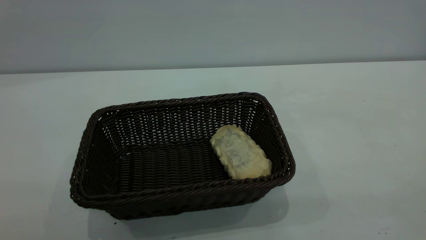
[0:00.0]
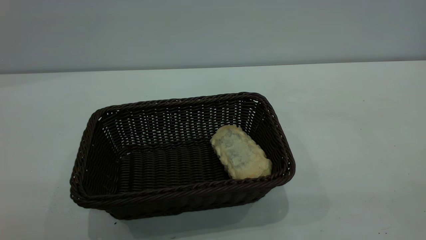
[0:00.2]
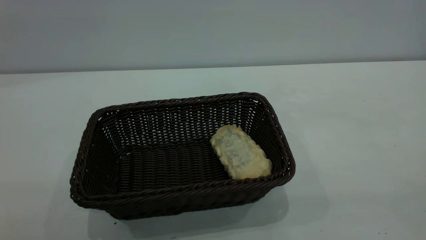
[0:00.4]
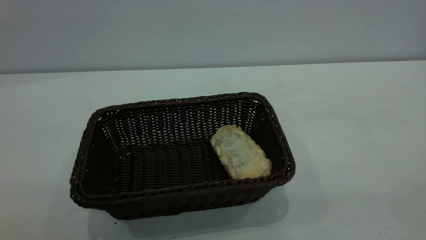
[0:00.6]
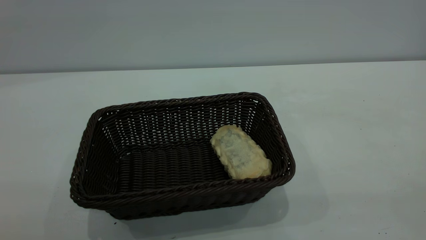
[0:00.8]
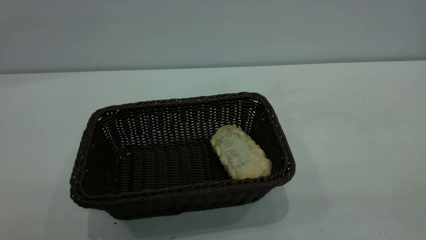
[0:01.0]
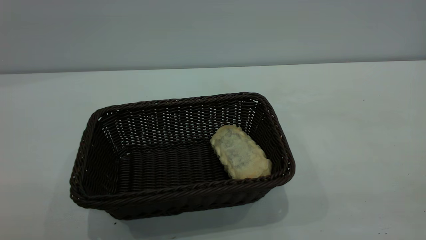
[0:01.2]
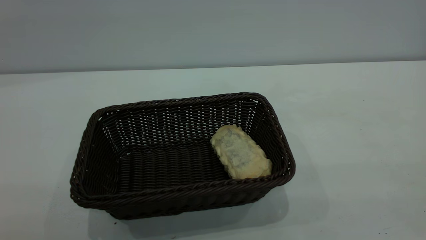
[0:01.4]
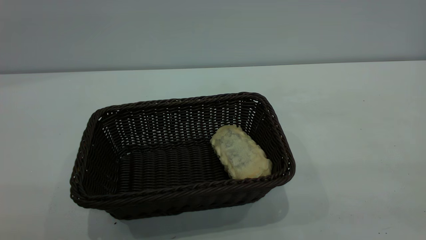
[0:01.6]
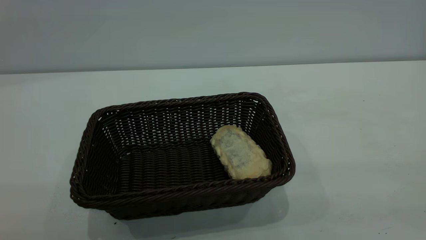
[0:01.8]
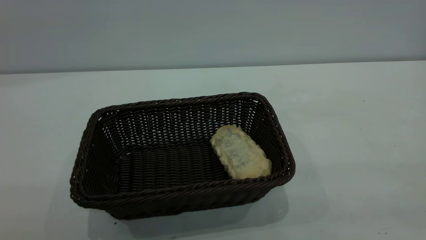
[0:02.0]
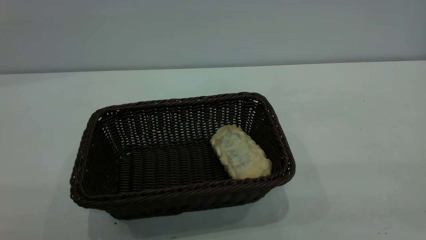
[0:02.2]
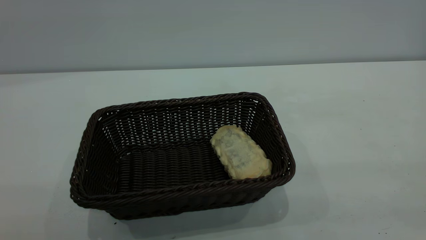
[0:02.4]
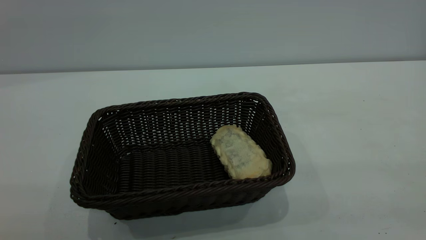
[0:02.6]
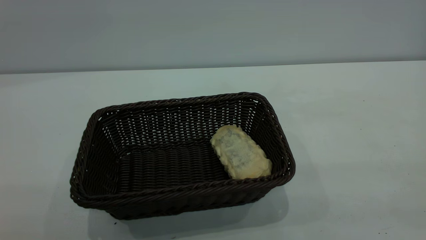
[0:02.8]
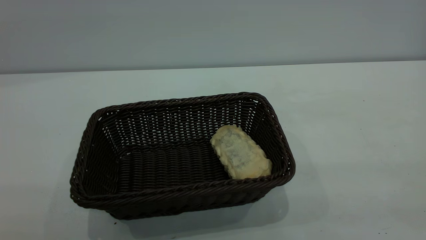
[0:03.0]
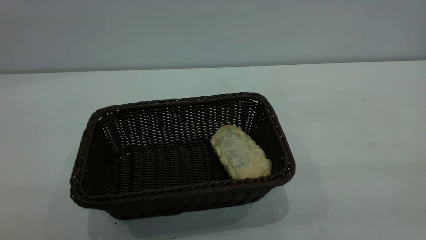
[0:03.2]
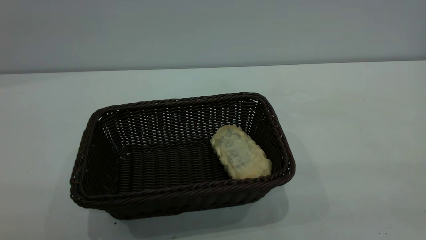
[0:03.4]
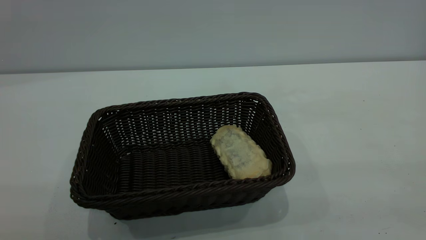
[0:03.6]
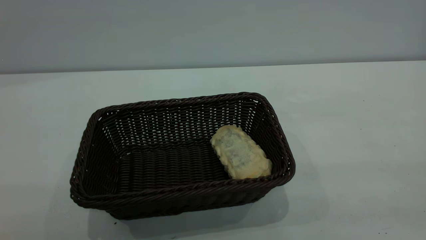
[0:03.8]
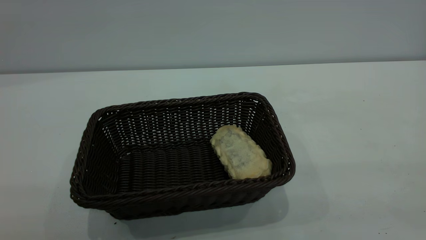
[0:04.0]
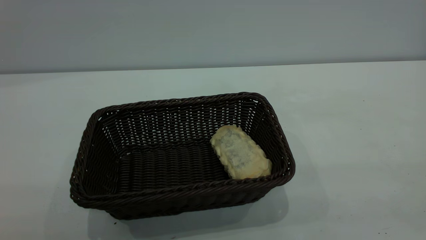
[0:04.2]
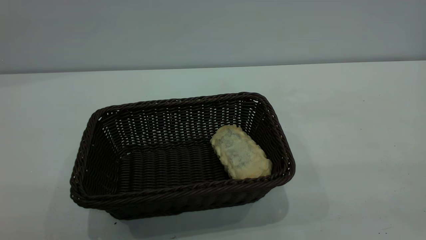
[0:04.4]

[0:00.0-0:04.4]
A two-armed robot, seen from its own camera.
Task of the whole recording: One hand grasps the black basket and places it in the middle of the table, while the other hand picks up the long bread and puts it into the black basket.
0:03.0 to 0:04.4: Neither gripper changes place.

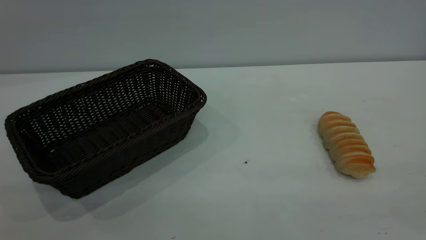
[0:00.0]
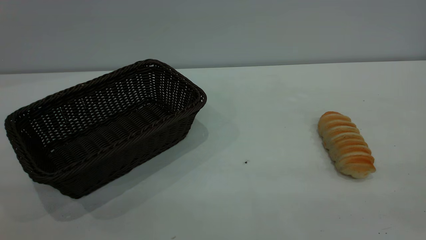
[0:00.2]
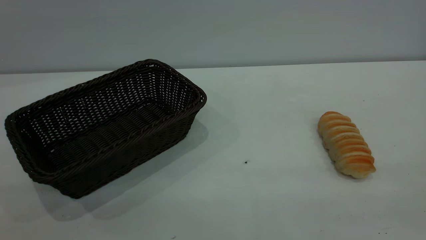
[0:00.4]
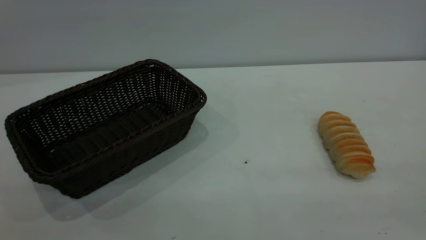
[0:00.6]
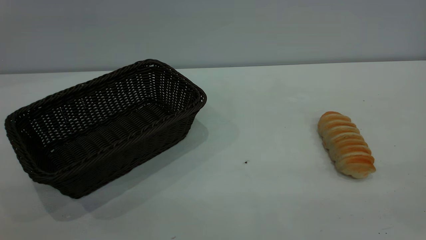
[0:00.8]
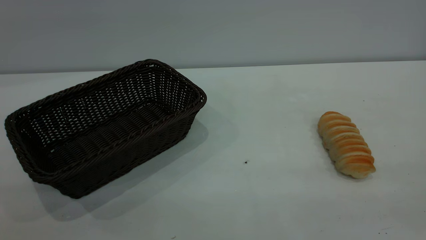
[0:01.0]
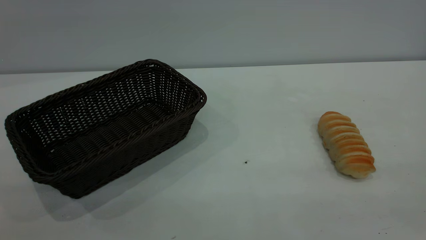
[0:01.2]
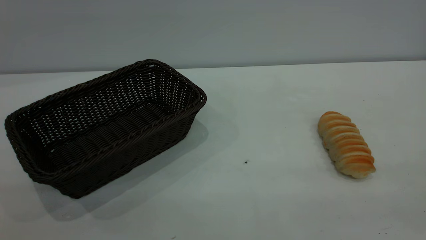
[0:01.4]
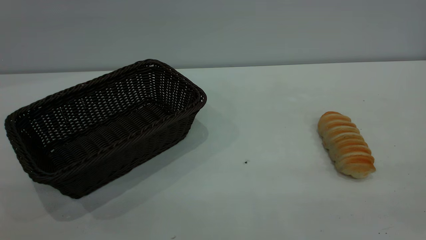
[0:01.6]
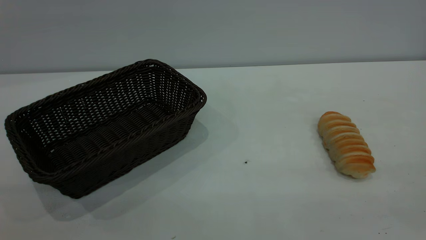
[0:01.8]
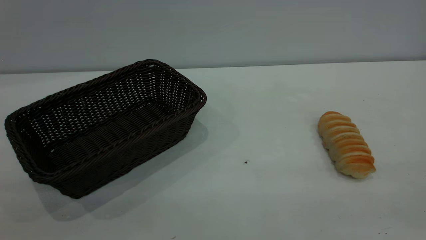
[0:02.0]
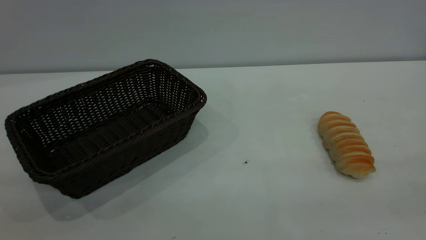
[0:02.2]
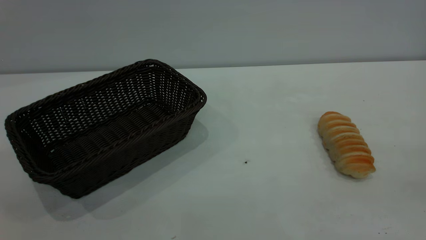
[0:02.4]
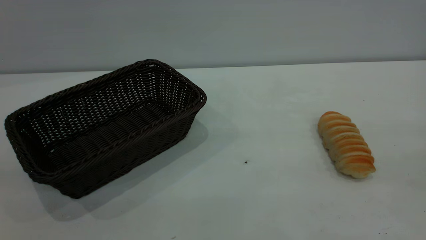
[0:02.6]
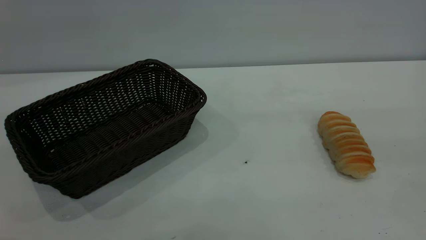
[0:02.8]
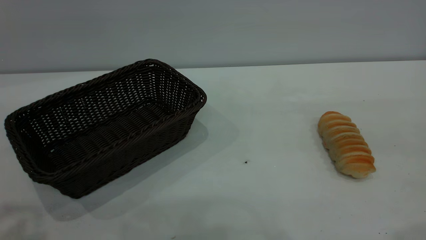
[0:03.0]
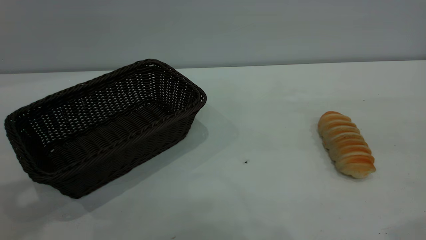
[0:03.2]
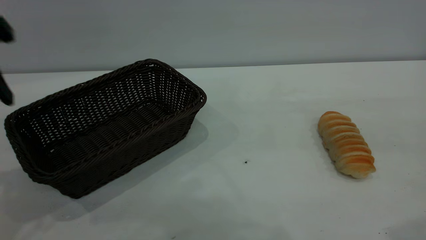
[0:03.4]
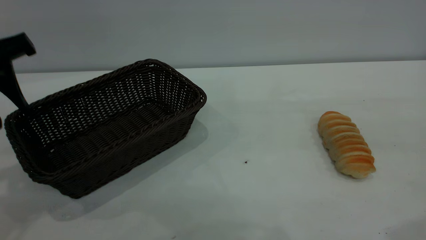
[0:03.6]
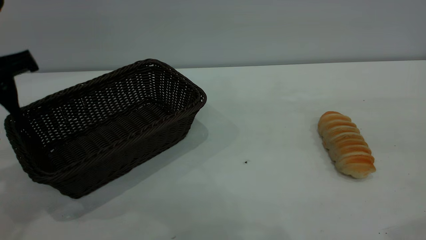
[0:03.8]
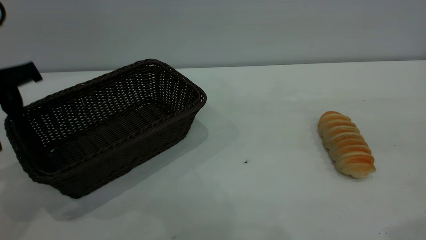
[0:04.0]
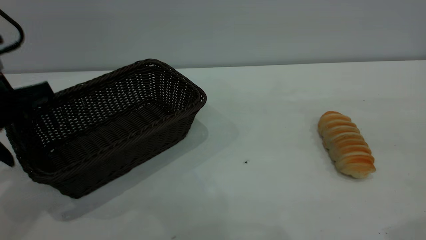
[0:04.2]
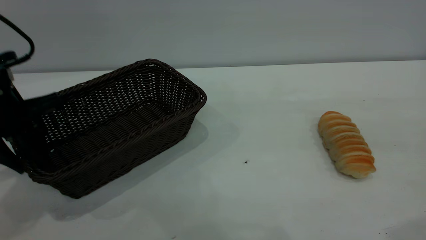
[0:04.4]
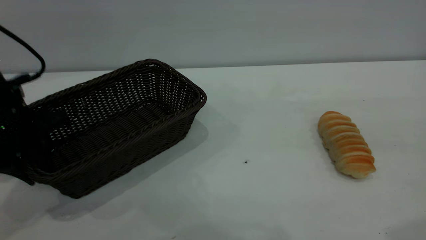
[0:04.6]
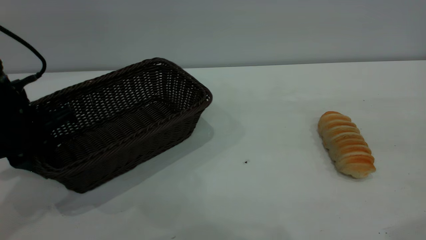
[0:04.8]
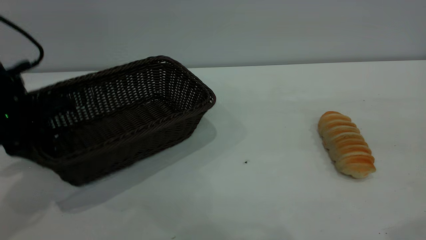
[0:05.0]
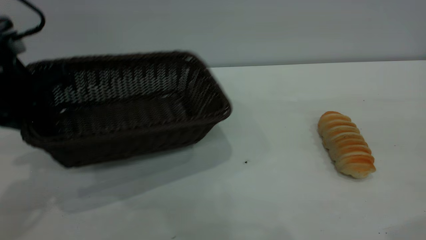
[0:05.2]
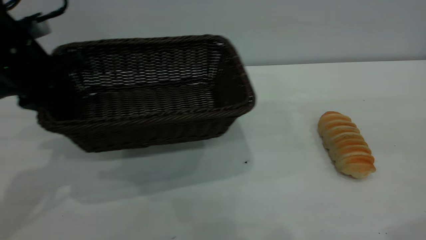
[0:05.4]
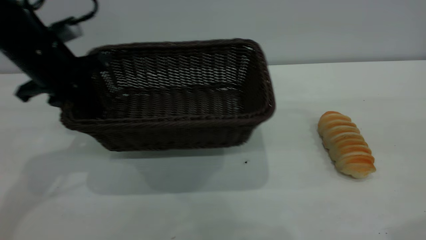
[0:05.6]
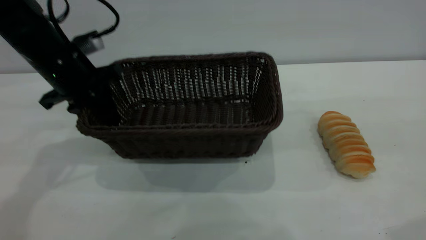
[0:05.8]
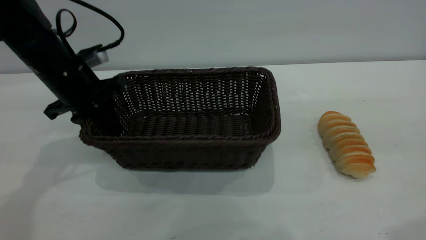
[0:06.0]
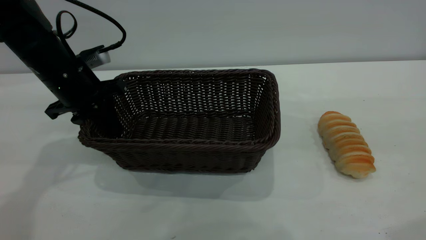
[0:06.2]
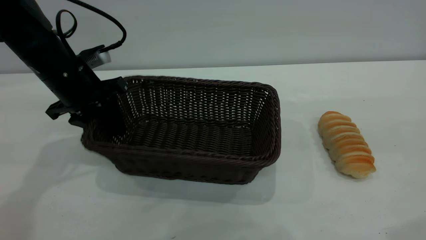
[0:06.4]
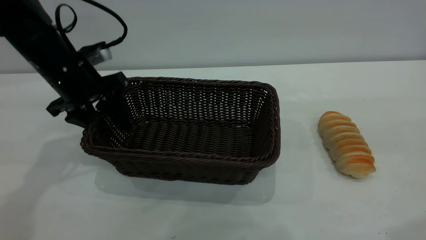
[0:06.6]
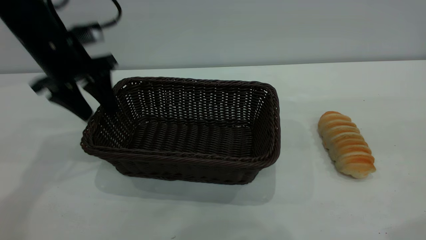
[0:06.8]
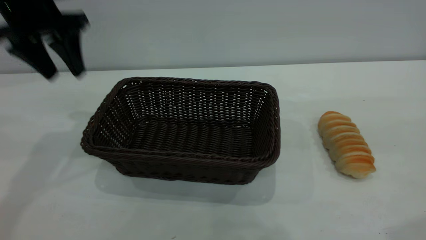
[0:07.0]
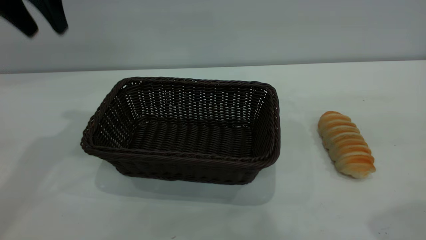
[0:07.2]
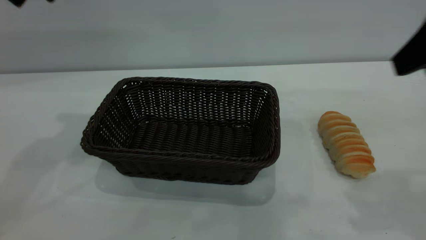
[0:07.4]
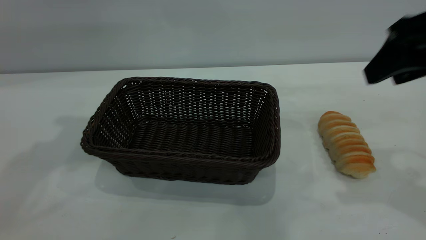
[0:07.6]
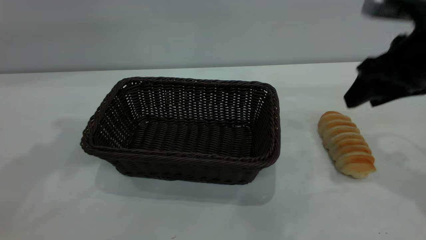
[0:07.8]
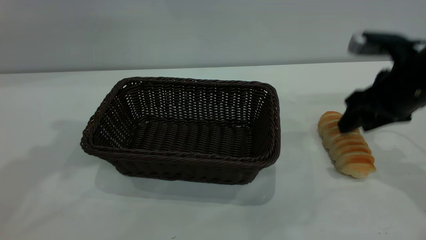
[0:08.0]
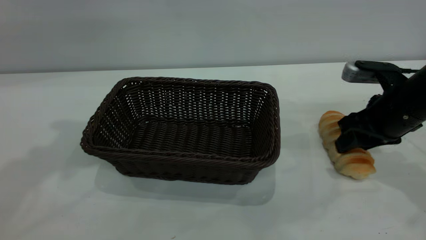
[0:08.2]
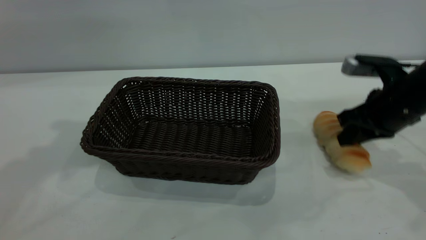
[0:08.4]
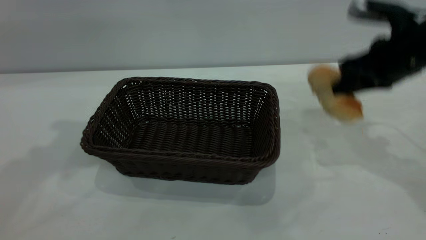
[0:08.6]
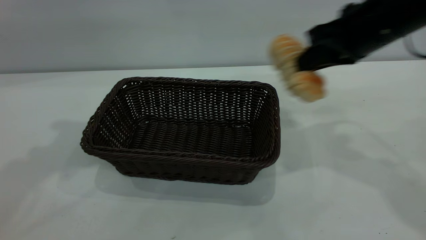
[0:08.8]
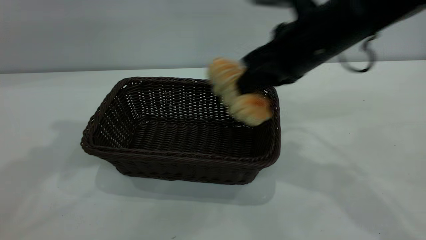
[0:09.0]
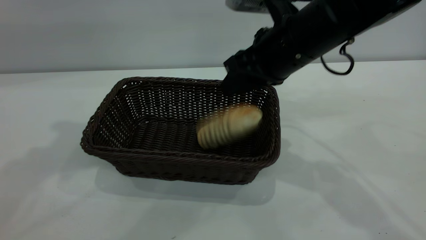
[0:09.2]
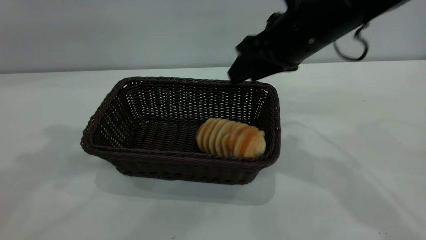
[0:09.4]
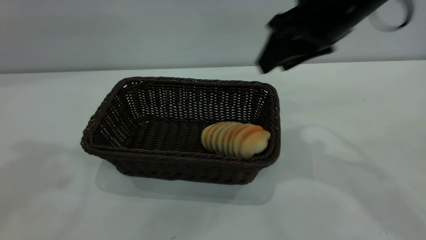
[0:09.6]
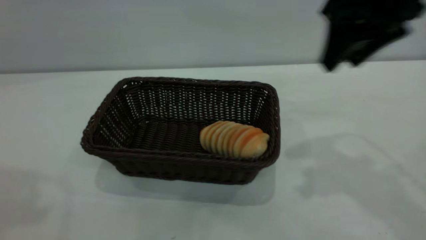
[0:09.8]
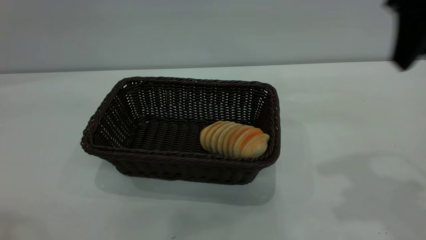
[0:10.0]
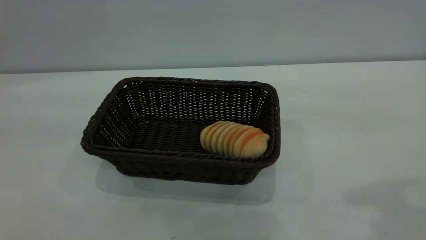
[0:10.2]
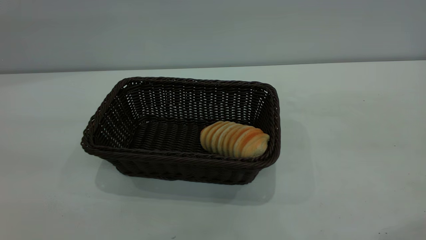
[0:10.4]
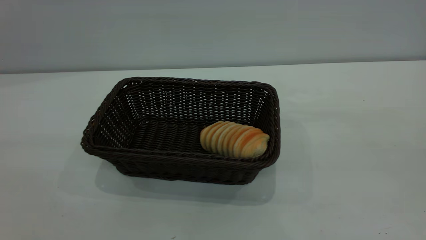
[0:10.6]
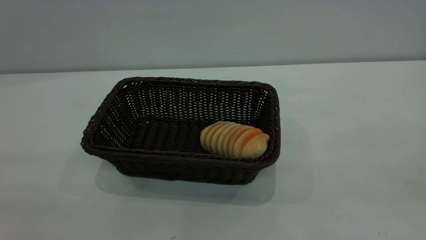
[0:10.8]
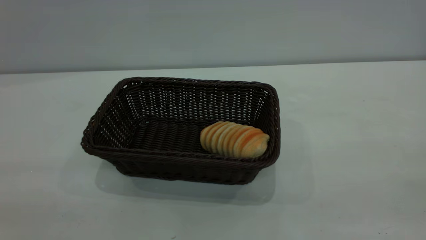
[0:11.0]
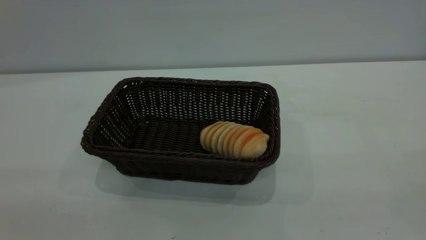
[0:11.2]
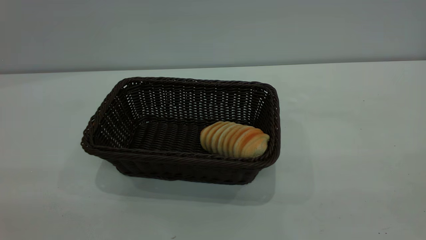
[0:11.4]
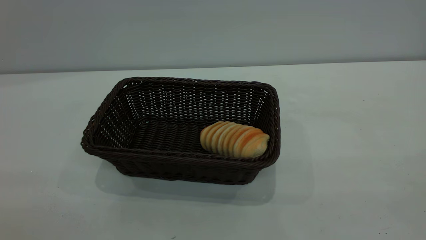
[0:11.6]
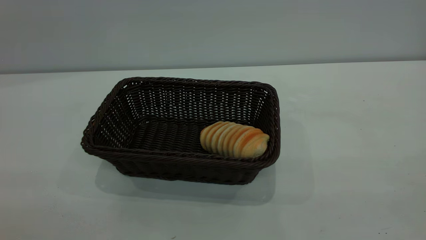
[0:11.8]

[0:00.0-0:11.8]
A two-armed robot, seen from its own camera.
Task of the whole recording: One hand grasps the black basket and places it in the middle of the table, while the other hand picks up the long bread and puts it into the black basket.
Step, 0:00.0 to 0:06.8: Move the basket to the center of view.
Step, 0:08.8 to 0:09.6: place the bread into the basket.
0:00.0 to 0:01.4: The two grippers keep their place.
0:03.0 to 0:04.4: The left gripper is displaced downward and forward by approximately 20 cm.
0:04.4 to 0:06.0: The left gripper heads forward, covering about 10 cm, and closes up.
0:06.0 to 0:07.4: The left gripper heads upward, covering approximately 25 cm, and opens up; the right gripper heads forward and downward, covering approximately 10 cm.
0:07.4 to 0:08.8: The right gripper travels forward, downward and to the left by some 15 cm, and closes its fingers.
0:08.8 to 0:10.4: The left gripper goes roughly 30 cm backward. The right gripper moves backward and upward, roughly 25 cm, and opens its fingers.
